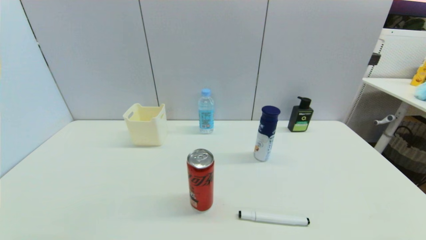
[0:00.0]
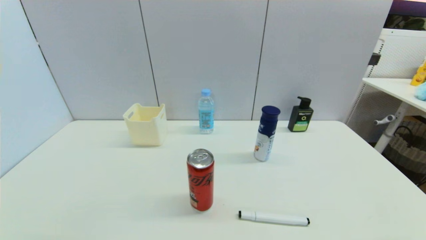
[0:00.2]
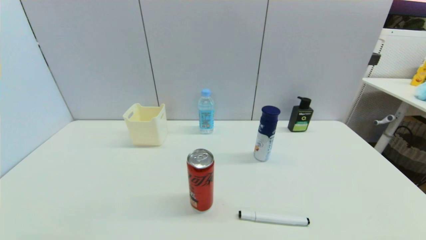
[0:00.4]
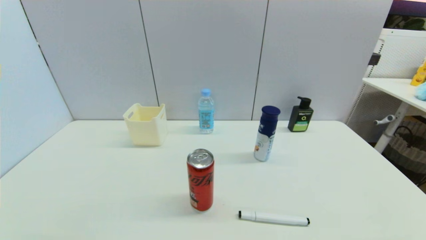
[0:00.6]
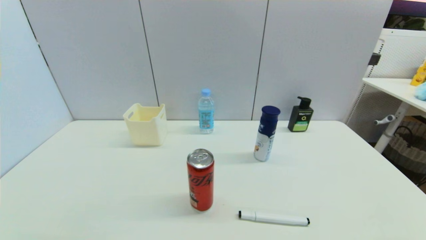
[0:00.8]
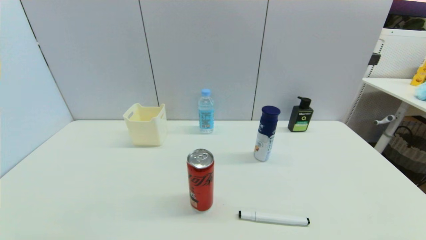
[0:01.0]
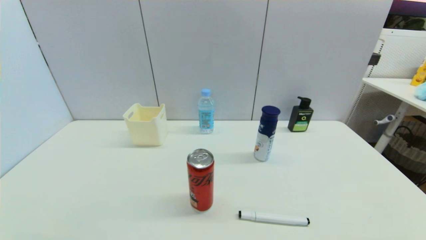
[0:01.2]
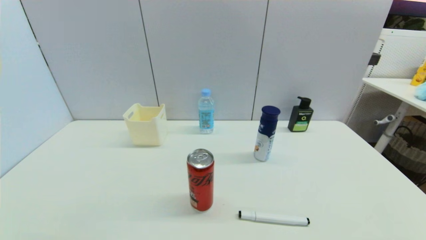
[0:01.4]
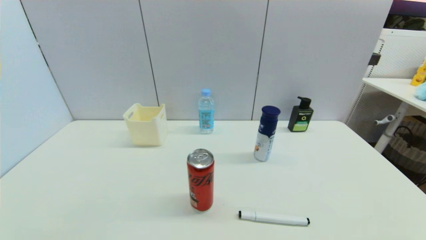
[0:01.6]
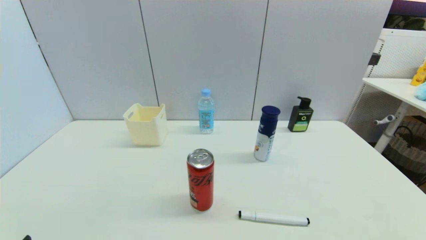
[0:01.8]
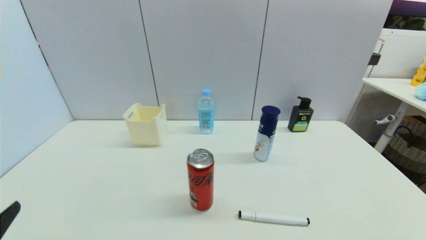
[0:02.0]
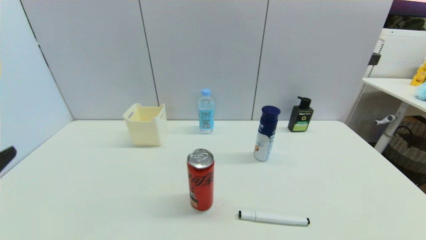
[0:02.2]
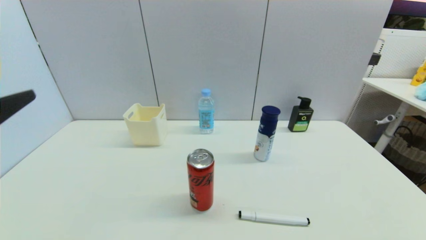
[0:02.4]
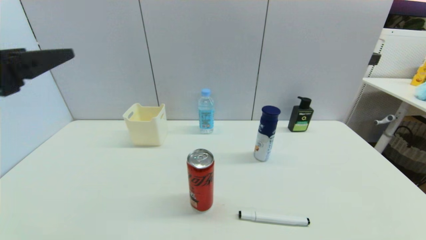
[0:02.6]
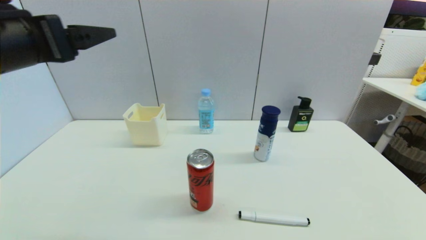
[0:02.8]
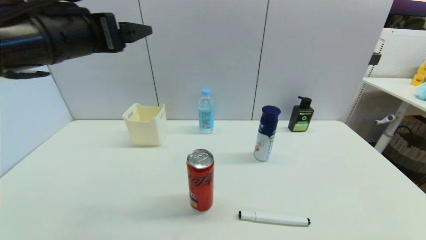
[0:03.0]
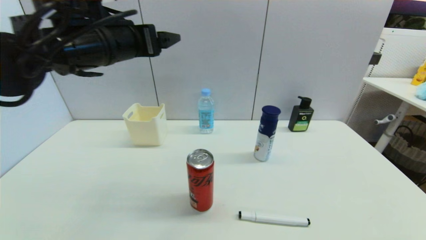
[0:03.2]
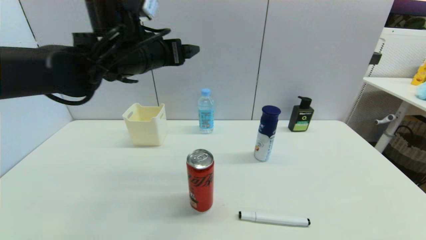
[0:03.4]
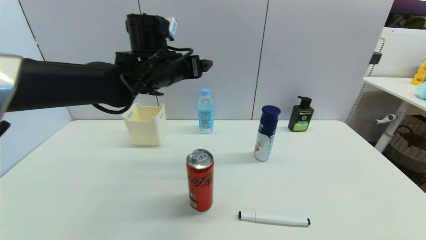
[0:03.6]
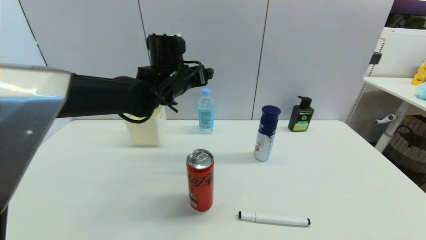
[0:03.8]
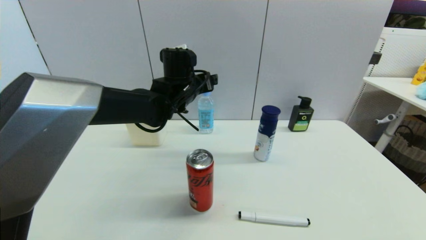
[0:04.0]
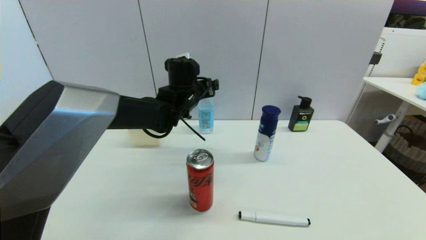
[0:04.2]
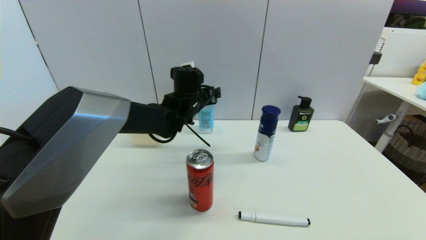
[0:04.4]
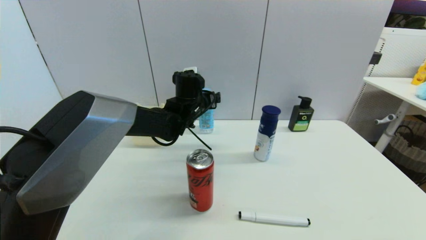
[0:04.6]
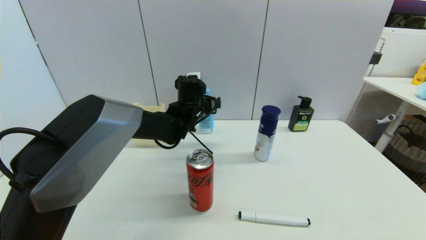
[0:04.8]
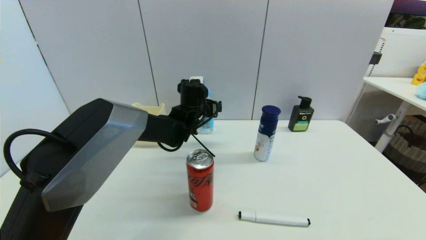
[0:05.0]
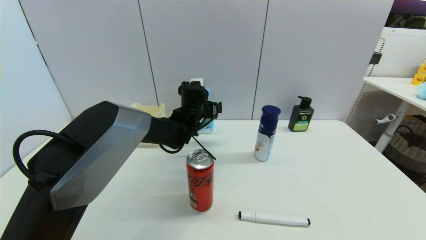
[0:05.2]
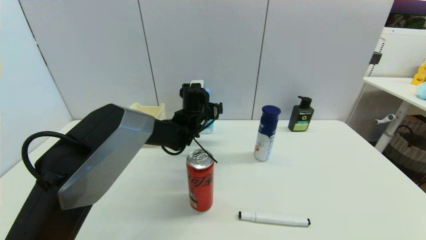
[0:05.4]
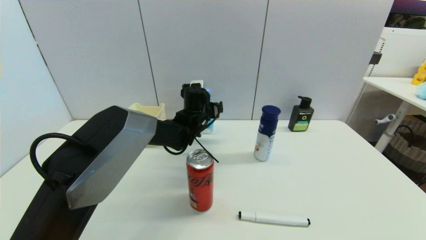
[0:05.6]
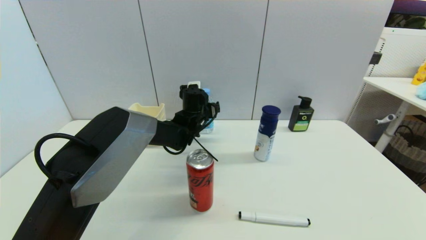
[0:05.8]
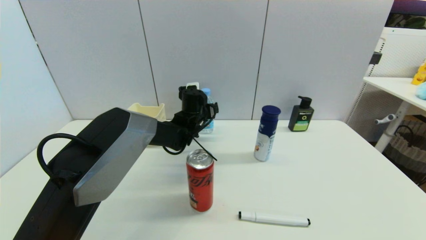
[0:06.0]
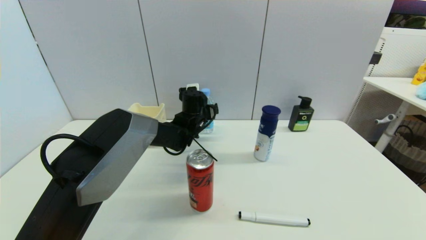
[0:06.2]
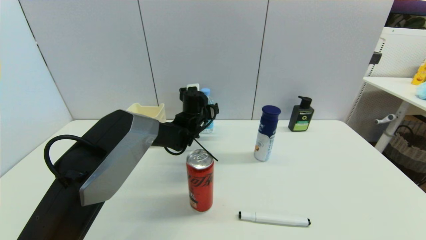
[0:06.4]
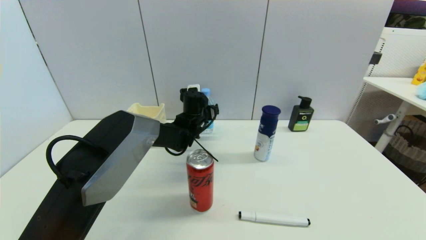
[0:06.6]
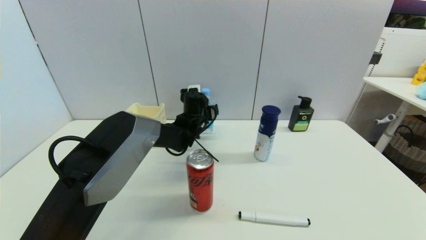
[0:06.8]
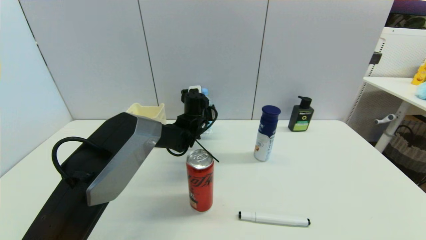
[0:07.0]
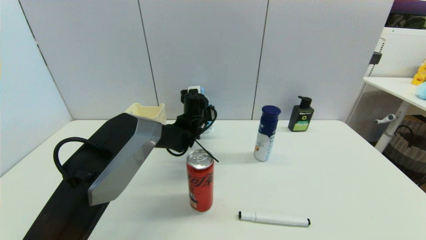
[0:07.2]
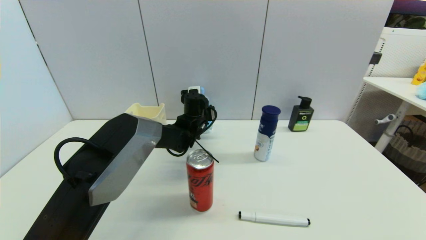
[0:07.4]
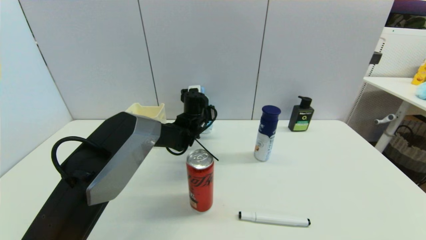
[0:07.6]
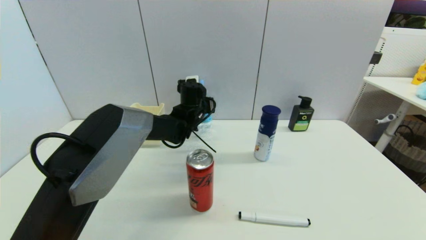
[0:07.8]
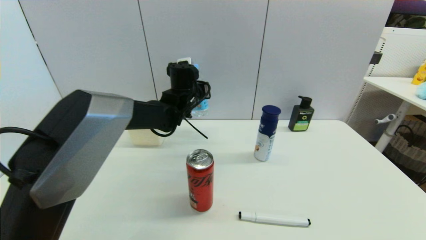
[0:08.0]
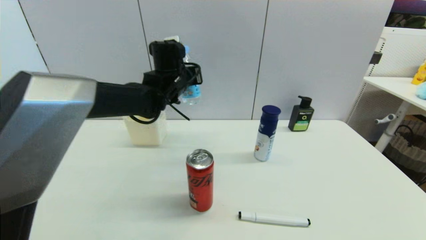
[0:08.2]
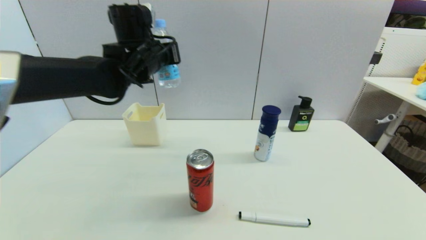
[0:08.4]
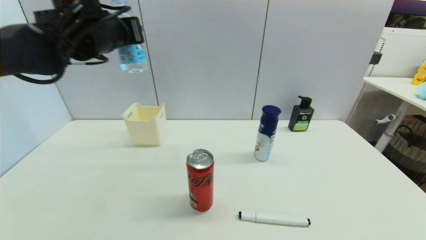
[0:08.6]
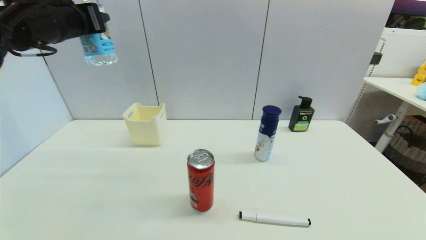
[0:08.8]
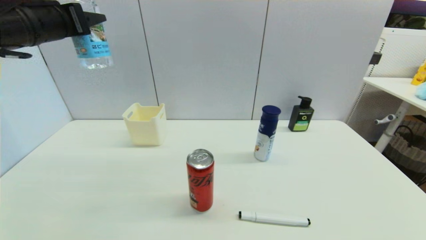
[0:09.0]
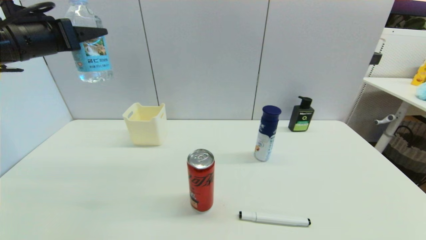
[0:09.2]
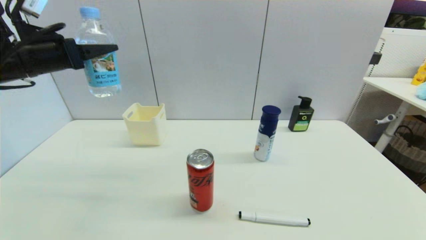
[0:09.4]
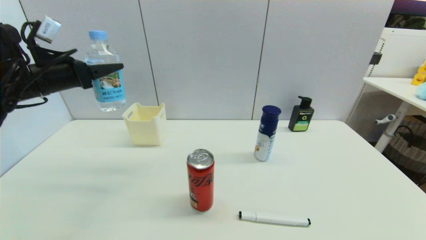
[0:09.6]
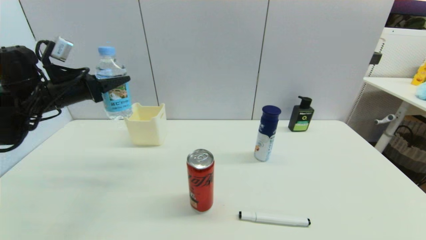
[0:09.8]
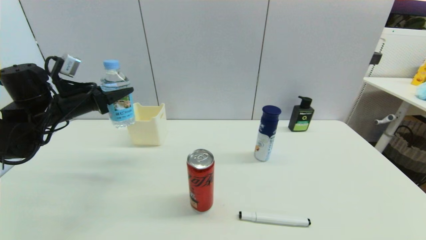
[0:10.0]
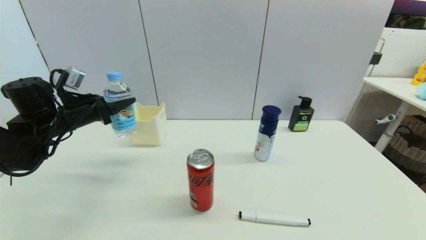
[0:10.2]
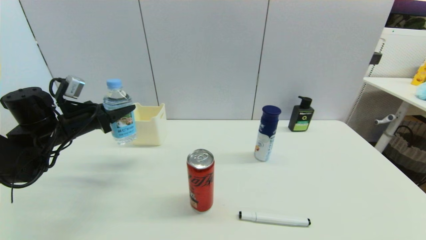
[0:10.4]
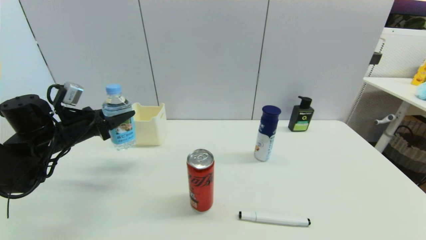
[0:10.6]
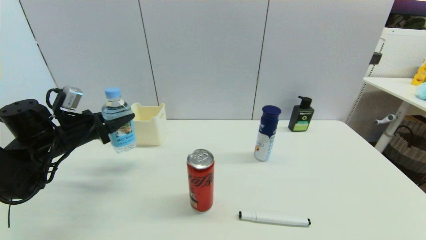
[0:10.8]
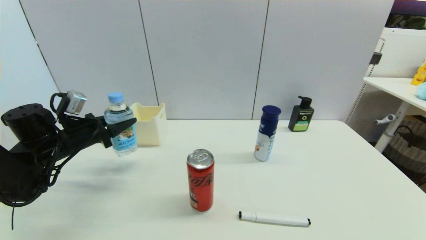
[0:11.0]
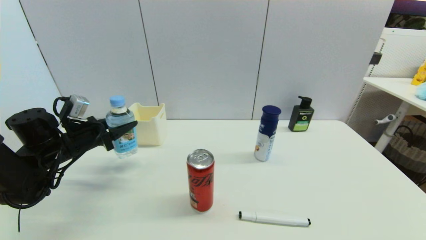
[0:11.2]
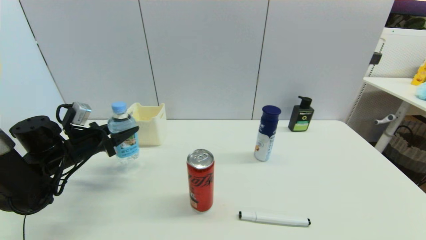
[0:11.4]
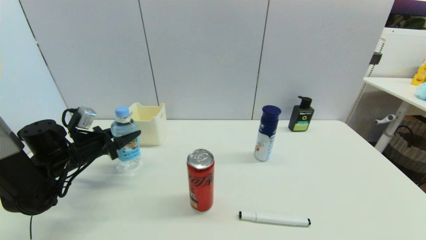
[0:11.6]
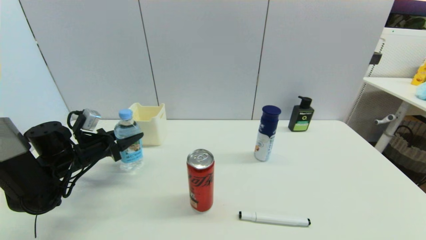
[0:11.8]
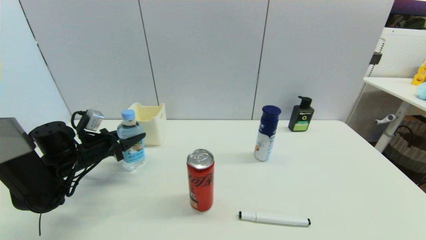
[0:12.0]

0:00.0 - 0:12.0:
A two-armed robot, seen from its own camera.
Step, 0:01.8 - 0:07.0: Grasp the soda water with left gripper.
0:00.0 - 0:01.6: Both grippers stay about where they are.
0:01.6 - 0:03.0: The left gripper travels upward and forward by approximately 40 cm.
0:03.0 - 0:04.4: The left gripper shifts approximately 30 cm downward, forward and to the right.
0:04.4 - 0:06.0: The left gripper is displaced downward by roughly 5 cm.
0:06.0 - 0:07.6: The left gripper closes up.
0:07.6 - 0:09.0: The left gripper moves upward, to the left and backward, roughly 40 cm.
0:09.0 - 0:10.4: The left gripper travels downward by approximately 20 cm.
0:10.4 - 0:12.0: The left gripper heads downward, covering about 10 cm.

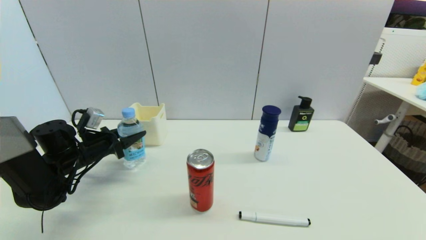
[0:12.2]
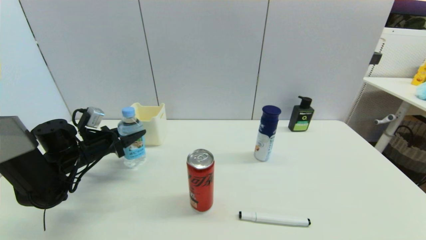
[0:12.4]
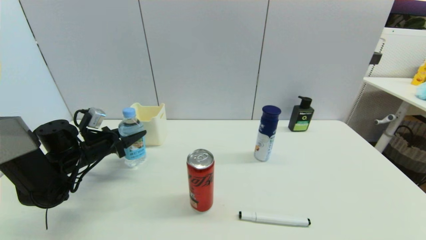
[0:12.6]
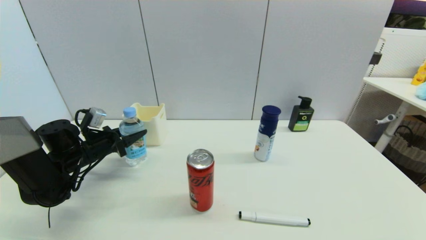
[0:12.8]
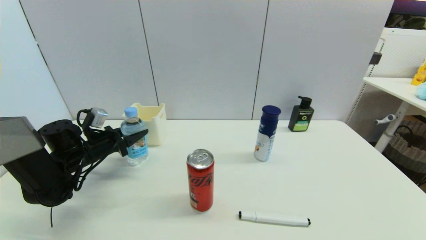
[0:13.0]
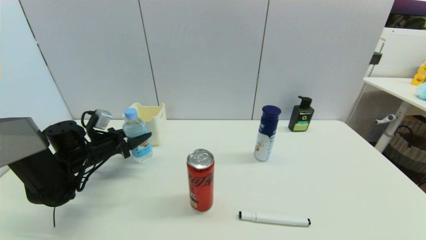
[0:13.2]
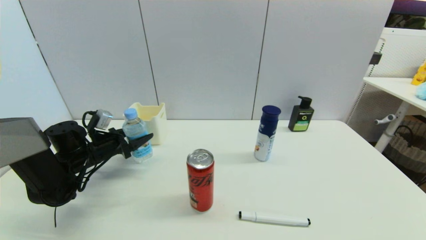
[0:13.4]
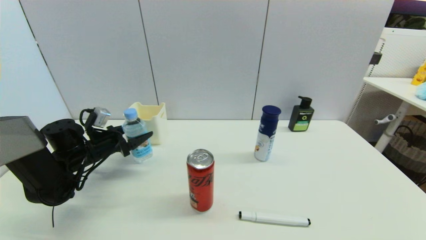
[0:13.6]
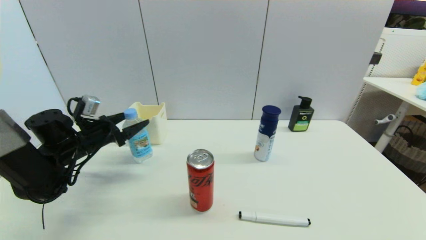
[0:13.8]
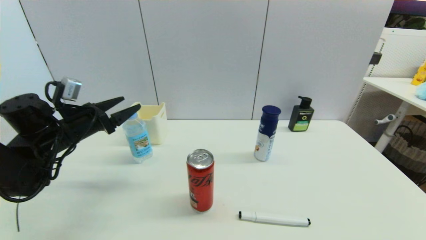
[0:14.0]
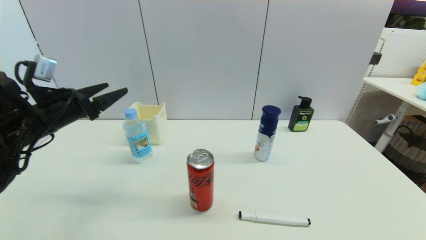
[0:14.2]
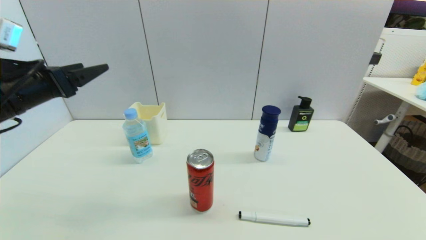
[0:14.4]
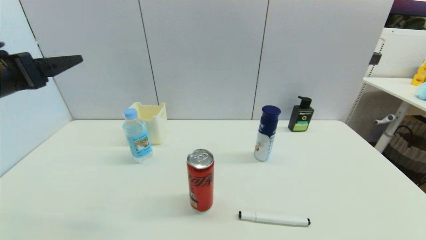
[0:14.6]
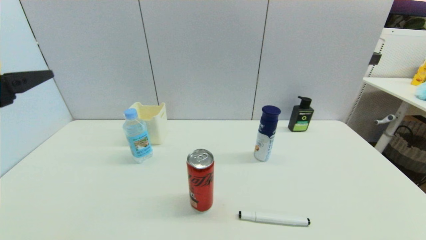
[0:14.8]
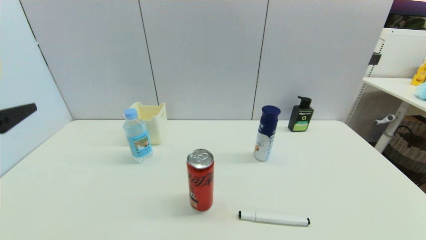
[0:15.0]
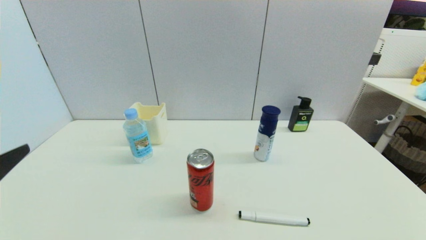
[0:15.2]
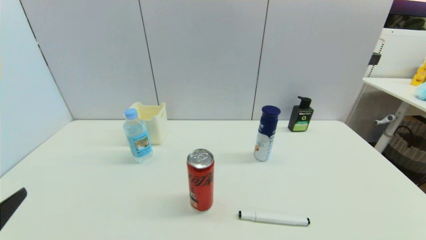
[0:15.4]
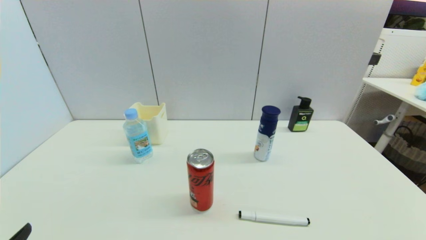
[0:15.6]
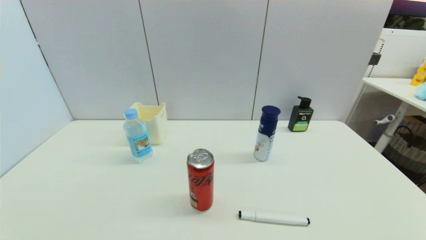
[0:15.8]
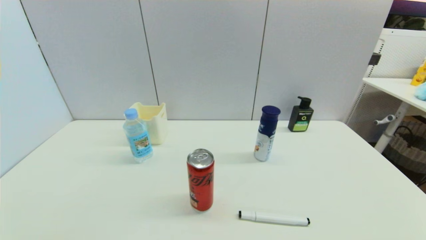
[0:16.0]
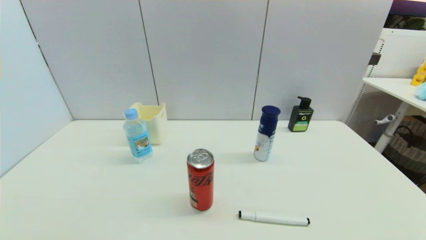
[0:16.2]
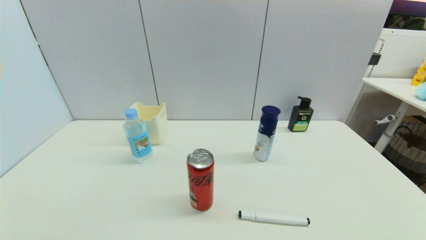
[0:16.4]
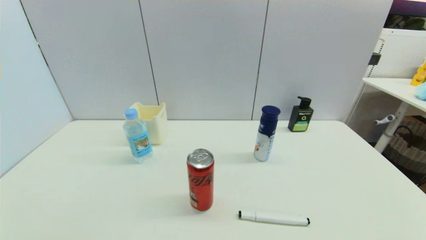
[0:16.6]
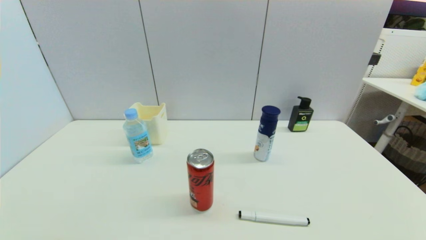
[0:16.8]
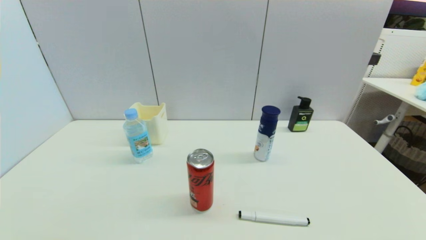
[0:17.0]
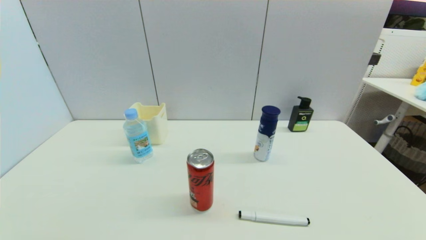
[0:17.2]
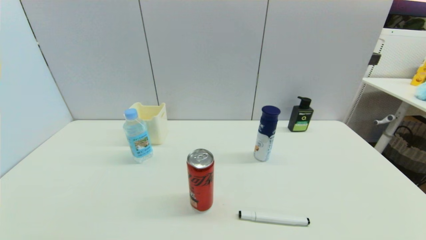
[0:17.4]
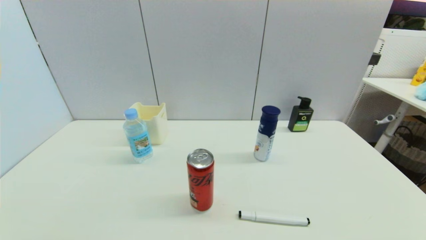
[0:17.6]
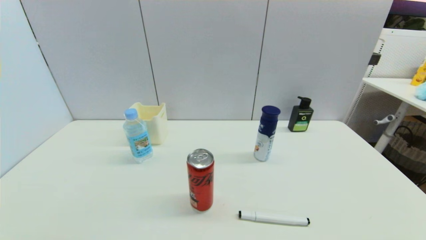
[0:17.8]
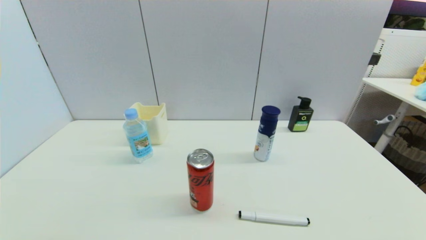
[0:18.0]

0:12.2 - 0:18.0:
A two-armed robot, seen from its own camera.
0:12.2 - 0:13.6: The left gripper opens its fingers.
0:13.6 - 0:15.0: The left gripper is displaced backward and upward by some 30 cm.
0:15.0 - 0:16.6: The left gripper shifts about 25 cm downward and backward.
0:16.6 - 0:18.0: Both grippers stay about where they are.
